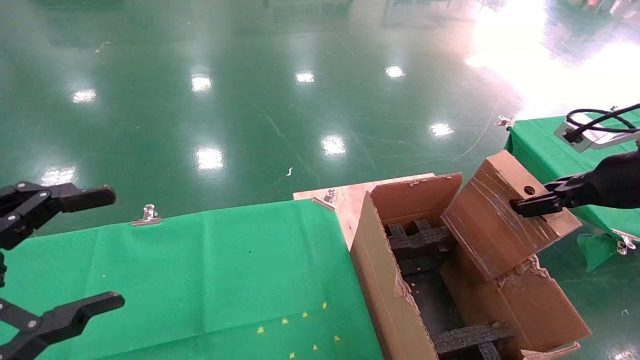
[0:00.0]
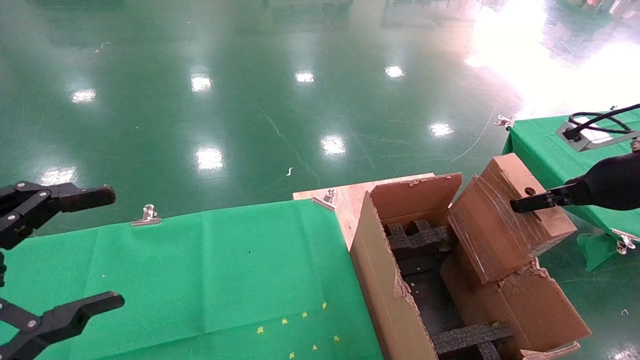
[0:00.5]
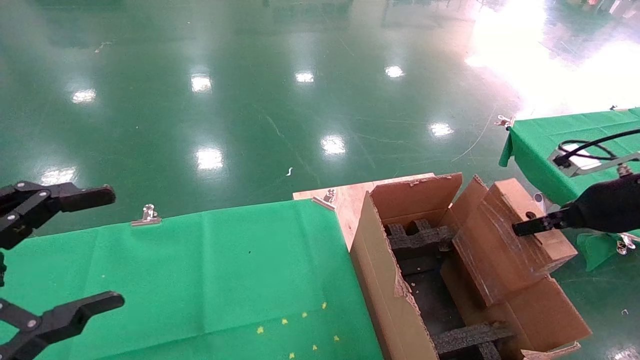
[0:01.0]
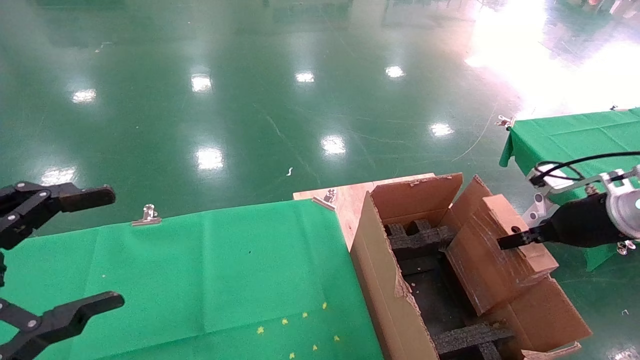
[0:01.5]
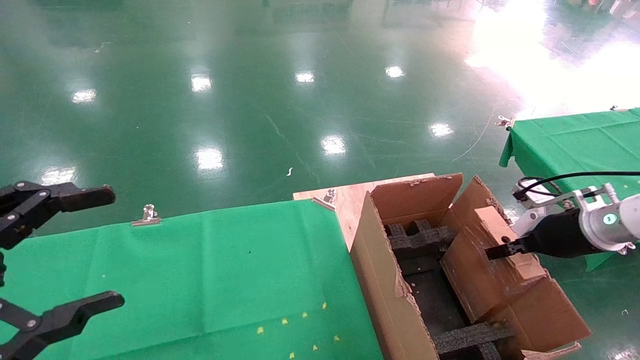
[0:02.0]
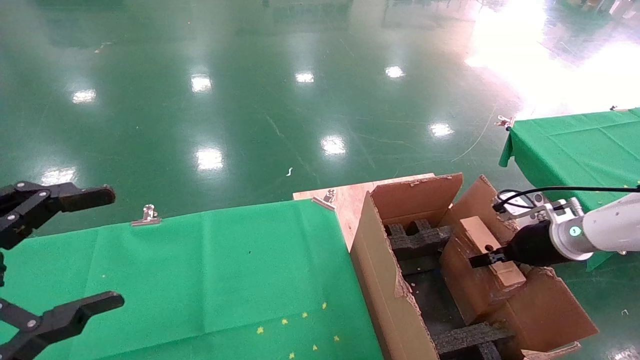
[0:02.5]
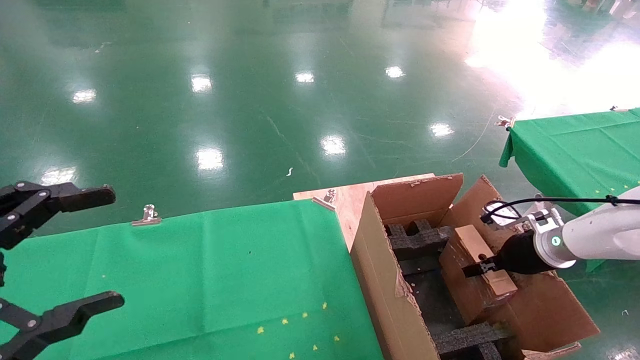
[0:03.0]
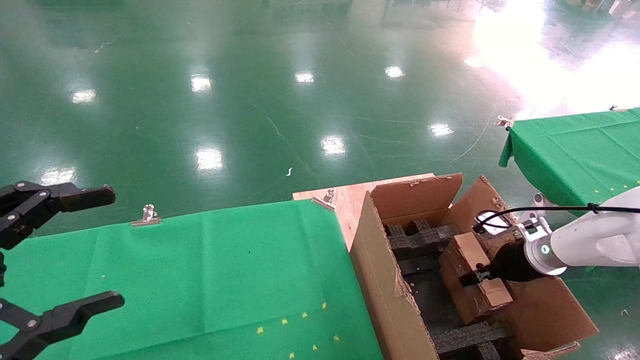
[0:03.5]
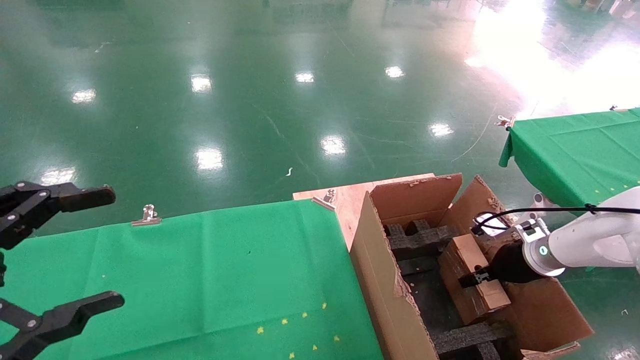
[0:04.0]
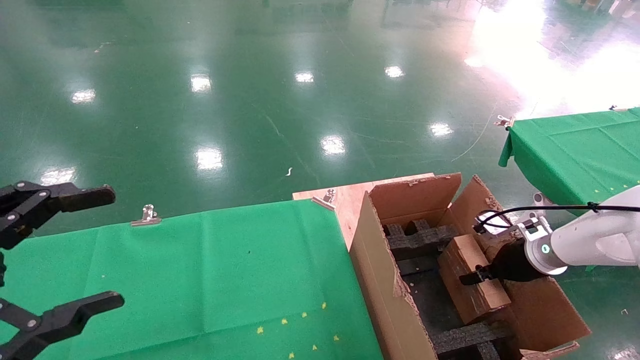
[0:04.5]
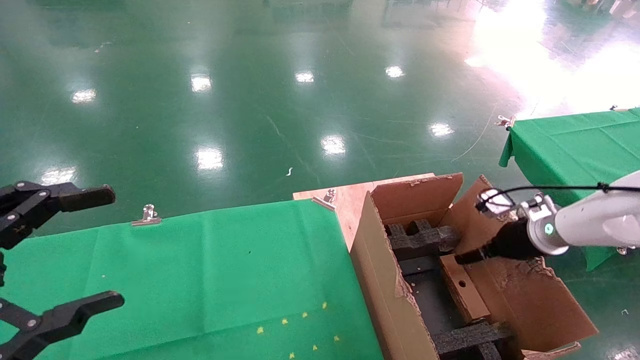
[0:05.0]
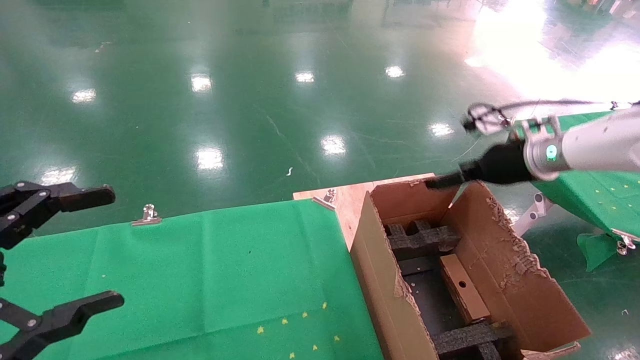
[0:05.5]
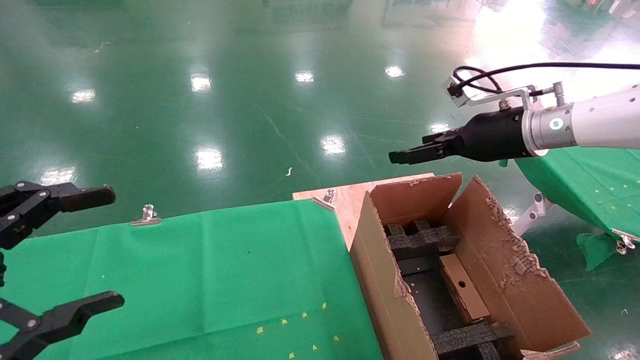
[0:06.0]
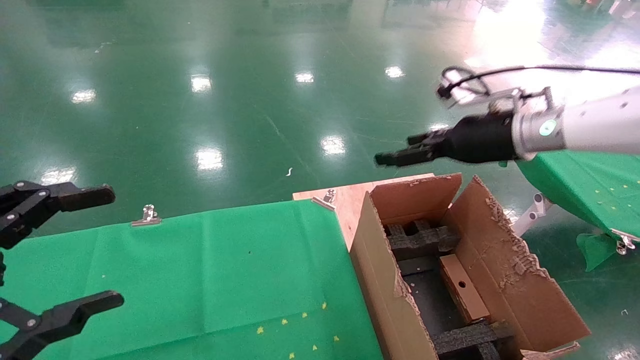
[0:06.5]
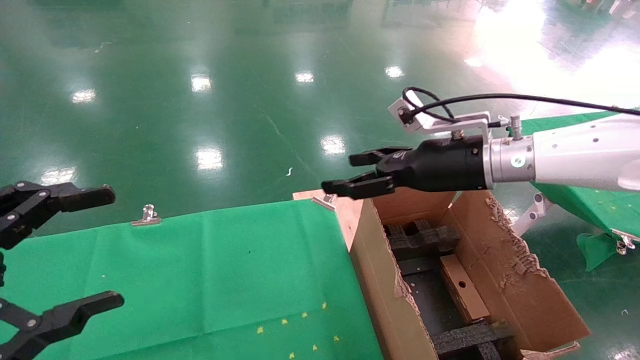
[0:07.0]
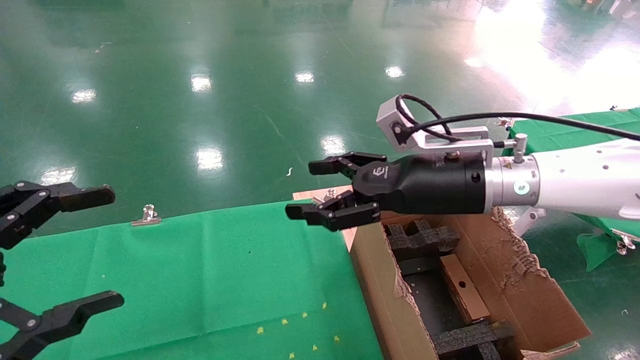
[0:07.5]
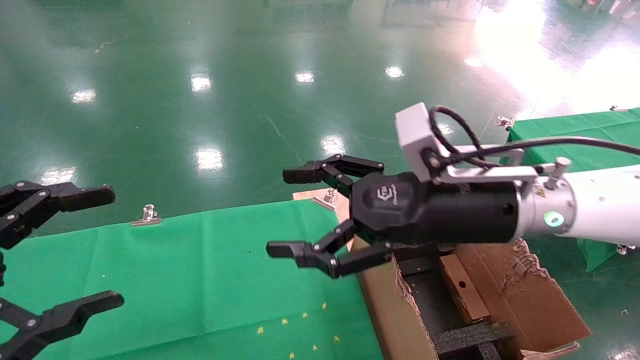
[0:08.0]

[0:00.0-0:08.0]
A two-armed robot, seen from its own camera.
Task of the whole recording: using a robotic arm to pick up a cardboard box and palace it the carton.
Step, 0:00.0 to 0:05.5: Place the mouse and the power cord paper box into the container.
0:00.0 to 0:02.0: The right gripper goes about 15 cm downward and forward.
0:02.0 to 0:04.0: The right gripper is displaced downward by some 10 cm.
0:04.0 to 0:06.0: The right gripper moves upward, some 25 cm, and opens up.
0:06.0 to 0:08.0: The right gripper goes roughly 20 cm to the left and backward.
